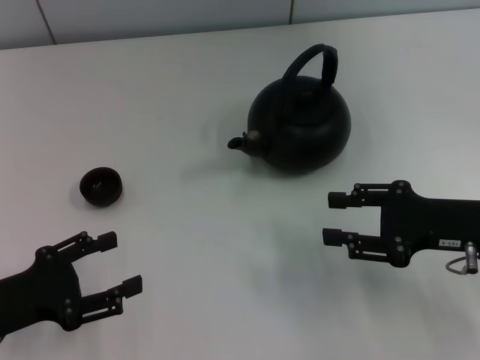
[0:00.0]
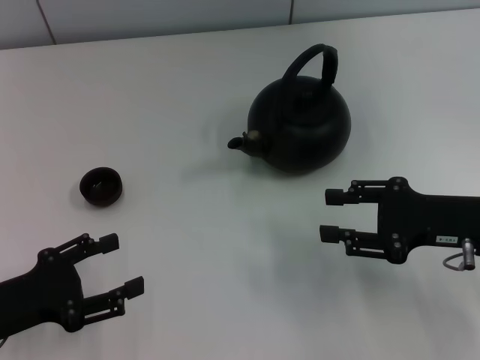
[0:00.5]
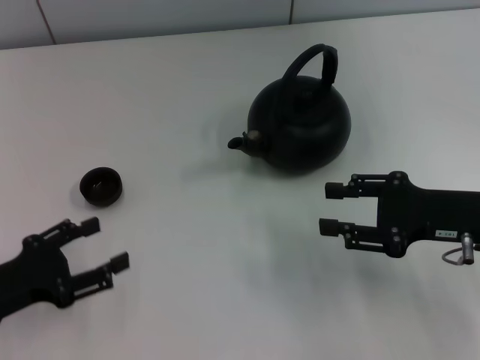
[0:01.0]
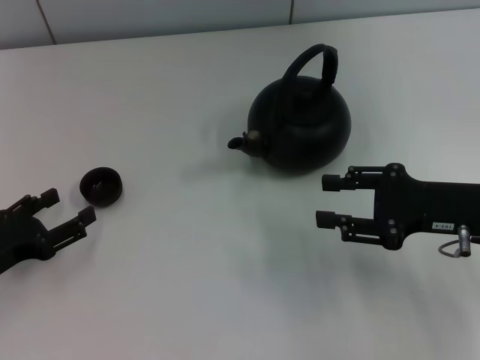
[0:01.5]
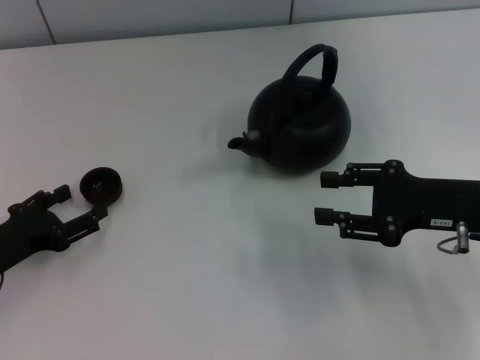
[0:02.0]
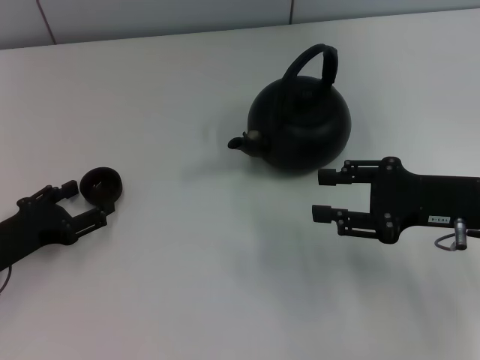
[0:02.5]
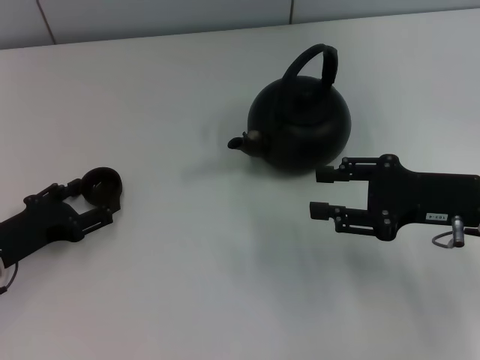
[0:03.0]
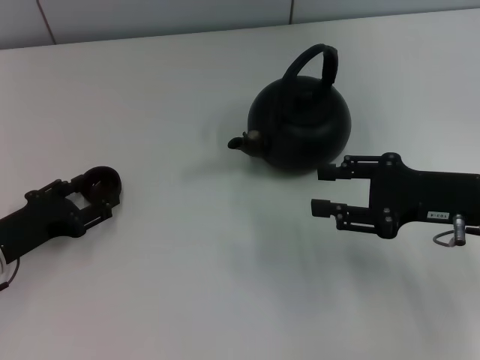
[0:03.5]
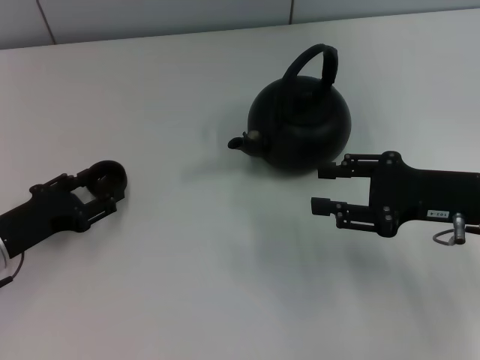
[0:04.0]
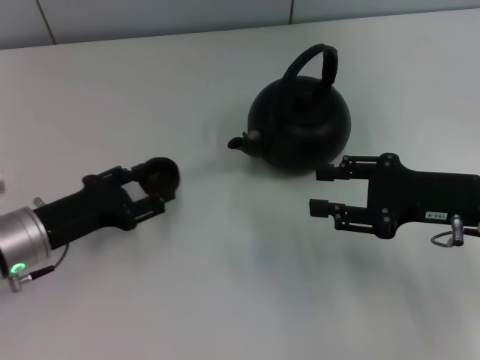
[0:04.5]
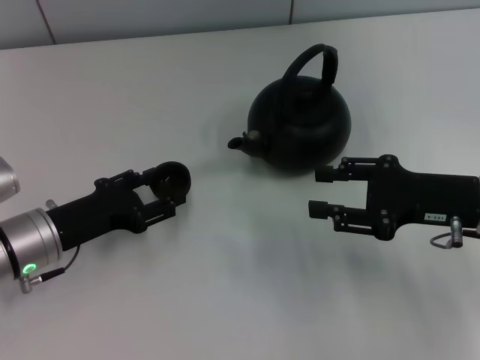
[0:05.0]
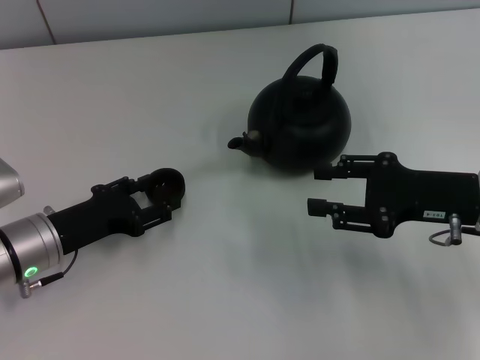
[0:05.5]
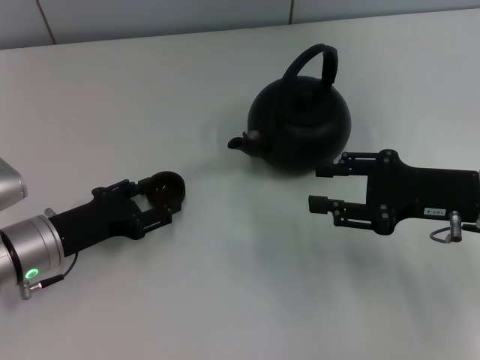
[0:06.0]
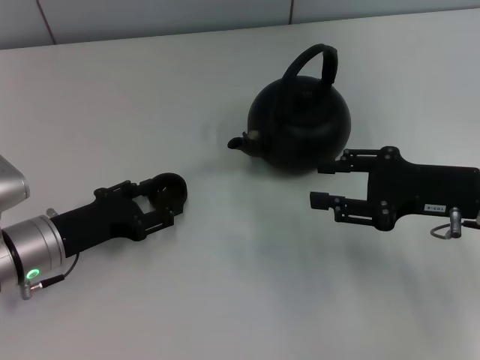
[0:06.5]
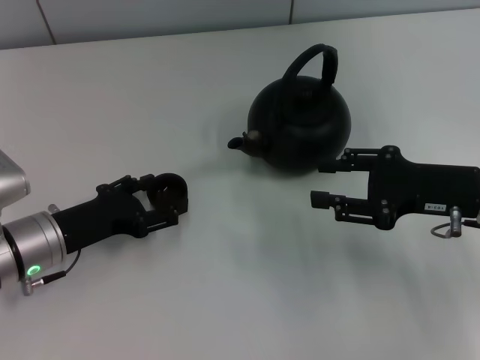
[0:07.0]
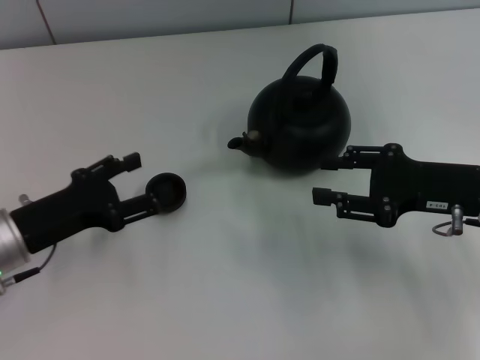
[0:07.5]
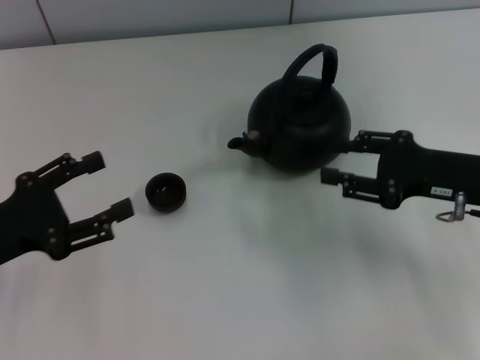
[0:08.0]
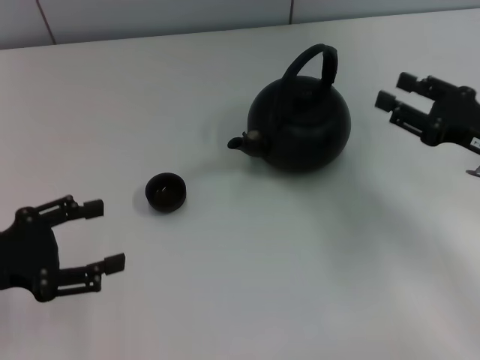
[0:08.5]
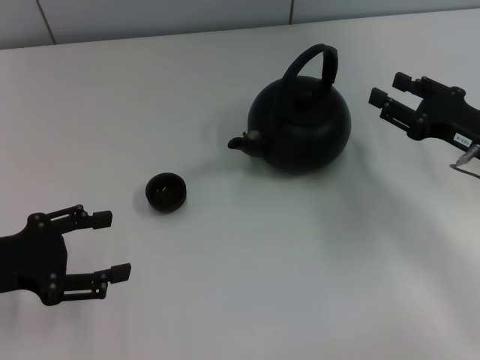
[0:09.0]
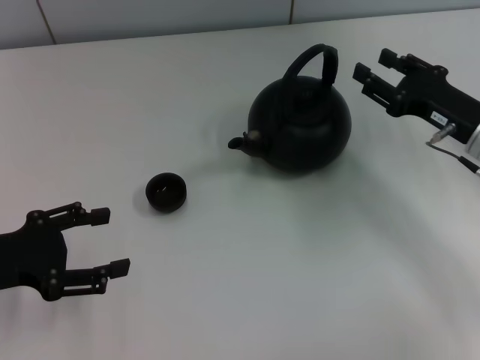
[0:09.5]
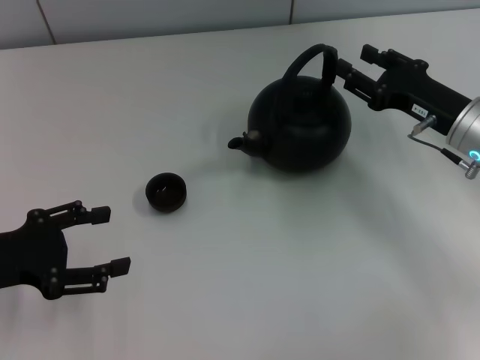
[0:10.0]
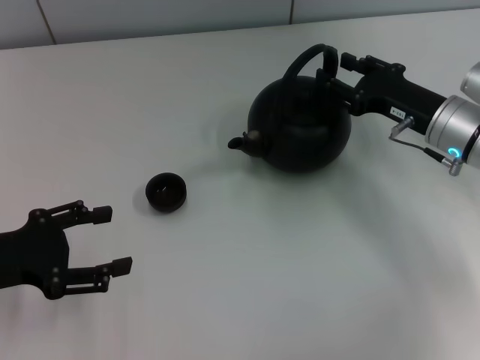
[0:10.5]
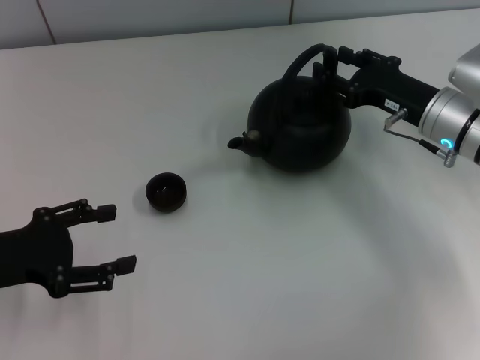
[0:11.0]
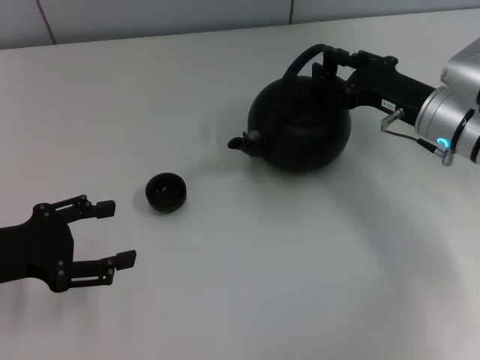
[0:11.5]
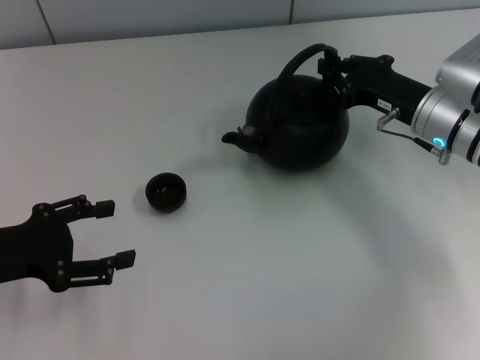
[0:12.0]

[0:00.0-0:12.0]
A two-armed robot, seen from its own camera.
Task of the whole recording: Grasp the handle of the teapot with one hand and pour tea into the teacup.
Step, 0:00.0 to 0:04.5: Pick up the teacup with the left gripper.
Step, 0:05.0 to 0:07.5: Place the teacup in the center of view with the left gripper.
0:00.0 to 0:02.0: The left gripper moves some 5 cm.
0:02.0 to 0:04.0: The left gripper closes up.
0:04.0 to 0:06.0: There are only small adjustments of the grippers.
0:06.0 to 0:08.0: The left gripper heads upward and to the left, covering roughly 10 cm, and opens up.
0:08.0 to 0:10.0: The right gripper goes approximately 5 cm forward.
0:10.0 to 0:12.0: The right gripper closes up.

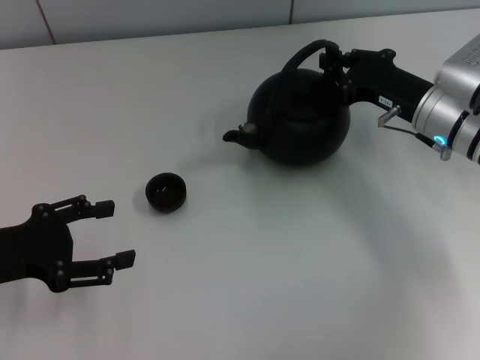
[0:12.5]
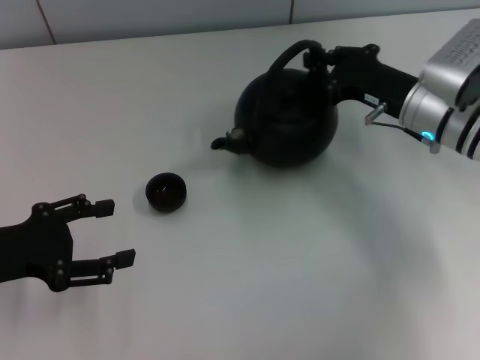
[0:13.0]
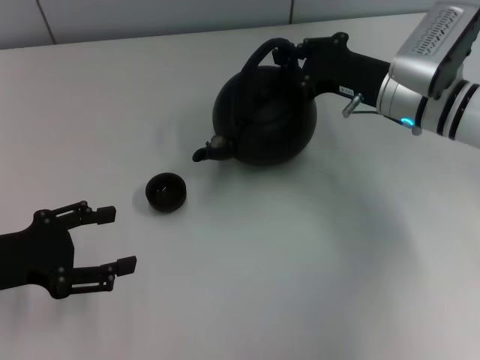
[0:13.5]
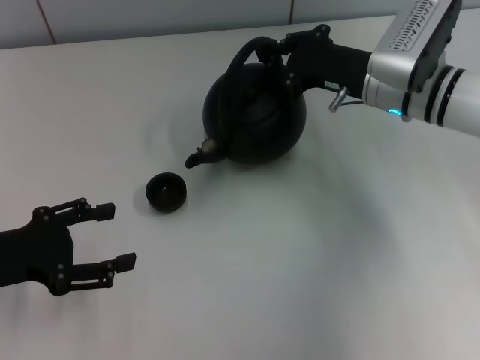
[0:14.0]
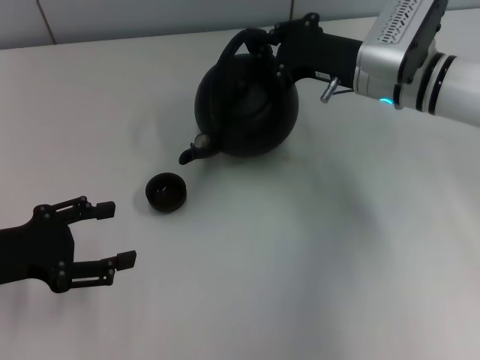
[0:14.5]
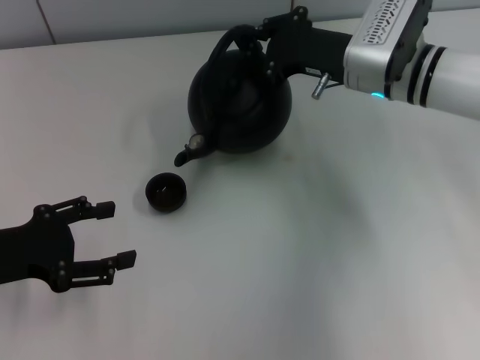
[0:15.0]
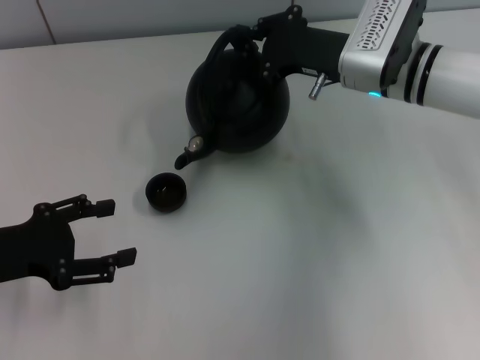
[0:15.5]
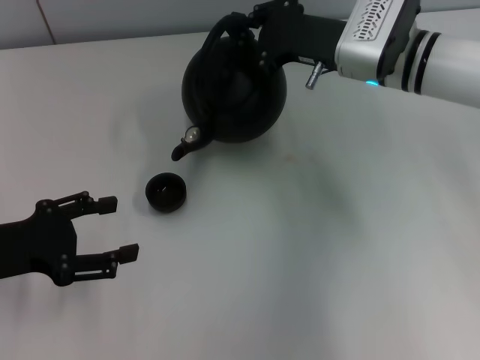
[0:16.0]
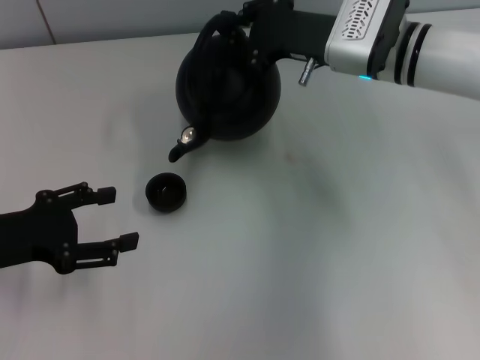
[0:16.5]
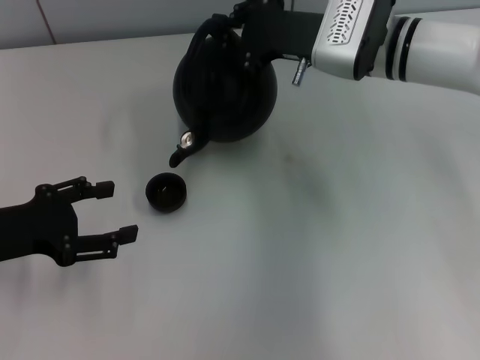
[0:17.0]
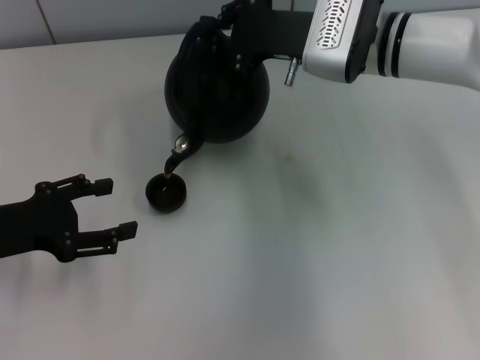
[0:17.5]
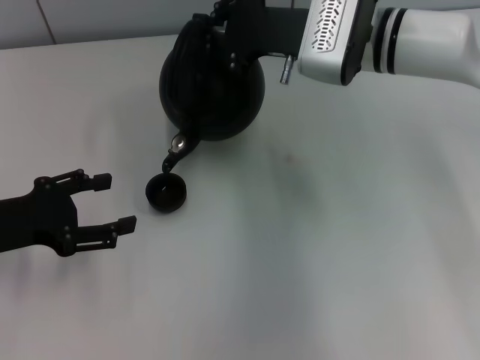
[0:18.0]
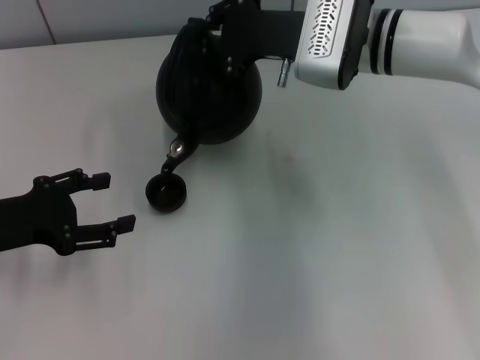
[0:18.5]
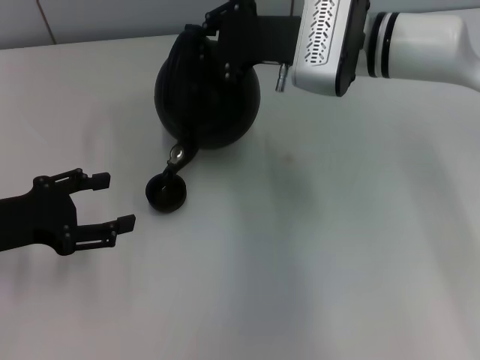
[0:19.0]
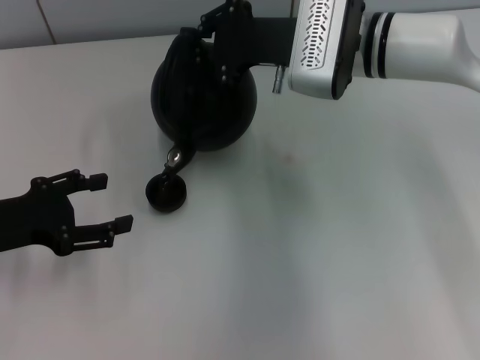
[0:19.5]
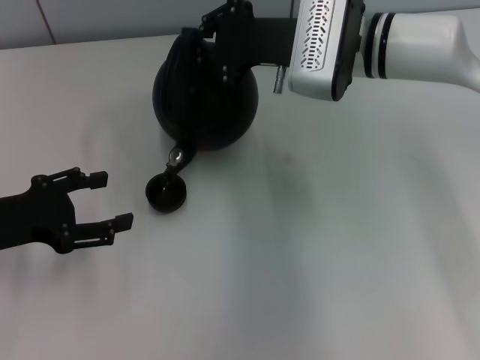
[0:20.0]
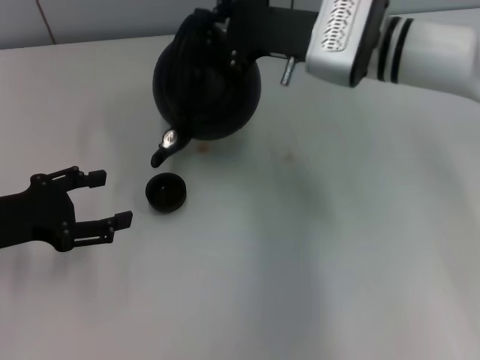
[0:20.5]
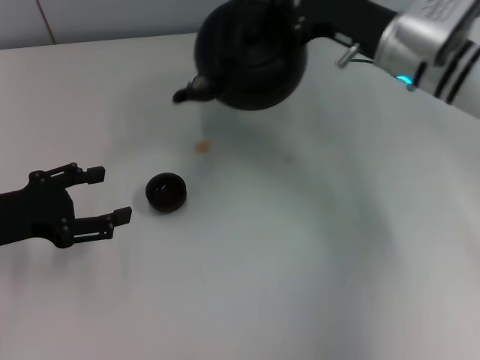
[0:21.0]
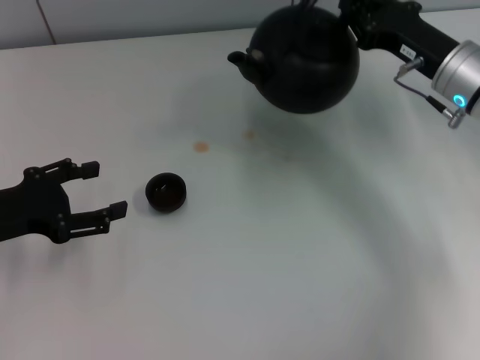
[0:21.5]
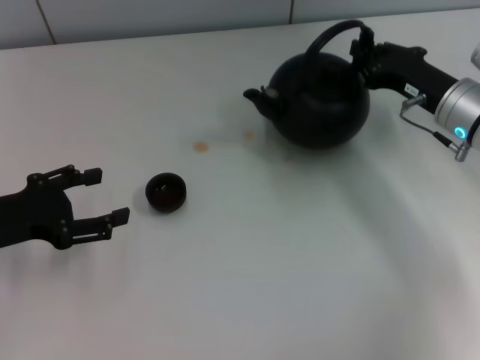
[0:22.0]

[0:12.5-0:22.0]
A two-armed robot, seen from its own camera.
Task of the whole recording: Grasp the handle of the teapot with one hand and pour tea into the teacup.
0:12.5 to 0:14.5: The right gripper goes roughly 5 cm to the left.
0:14.5 to 0:16.5: The grippers stay close to where they were, moving slightly.
0:16.5 to 0:18.0: The grippers move only a little.
0:18.0 to 0:20.0: Neither gripper changes place.
0:20.0 to 0:22.0: The right gripper shifts about 15 cm to the right, downward and backward.

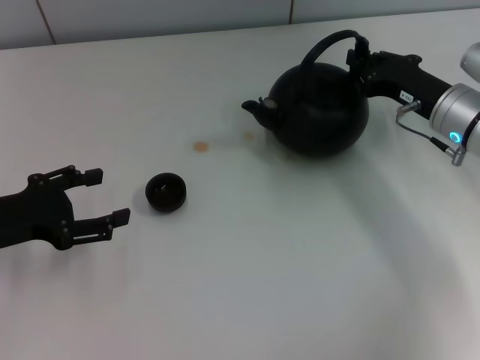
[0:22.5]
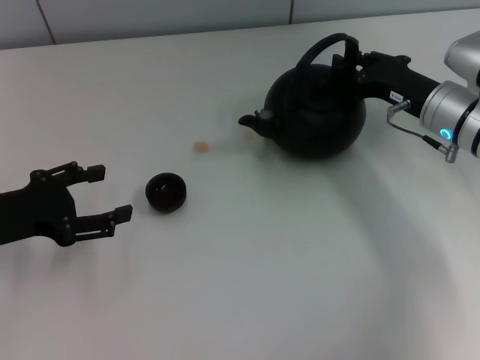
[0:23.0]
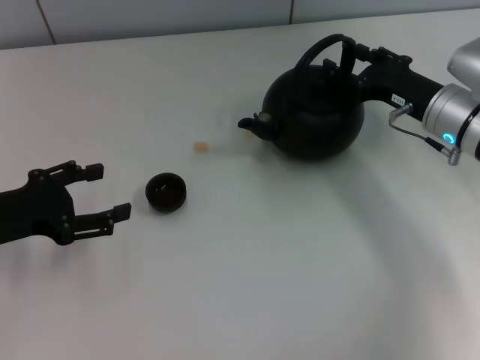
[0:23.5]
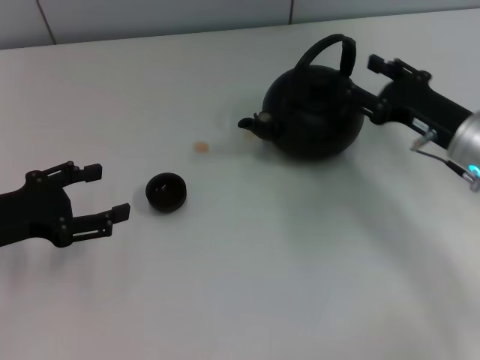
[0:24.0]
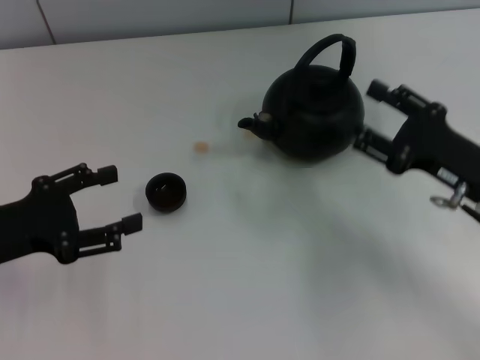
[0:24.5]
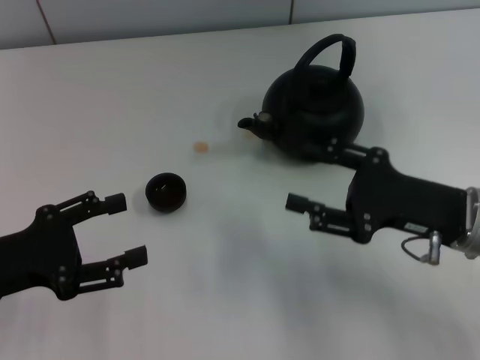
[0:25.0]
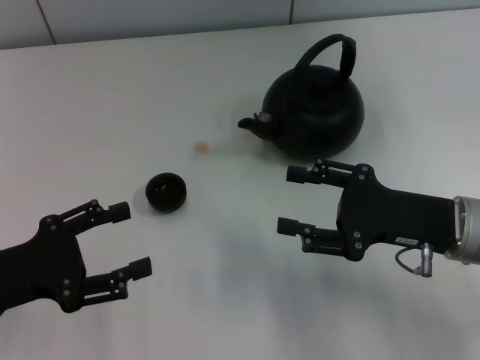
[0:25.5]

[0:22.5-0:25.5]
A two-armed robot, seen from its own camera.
Task of the whole recording: Grasp the handle of the teapot with one hand and pour tea into the teacup.
0:22.5 to 0:24.0: The right gripper opens up.
0:24.0 to 0:25.5: Both grippers travel together backward, approximately 5 cm.
